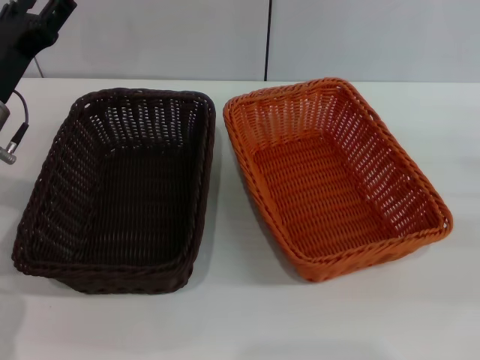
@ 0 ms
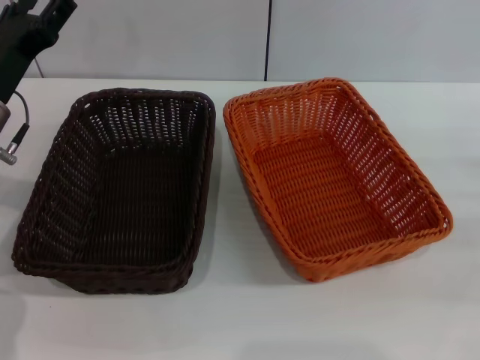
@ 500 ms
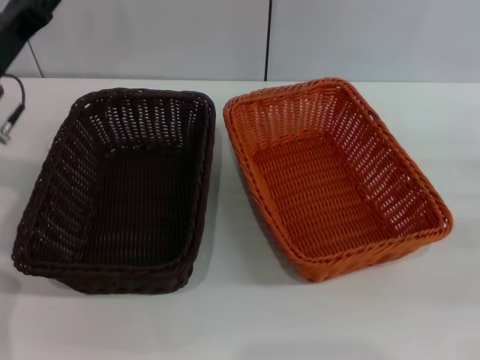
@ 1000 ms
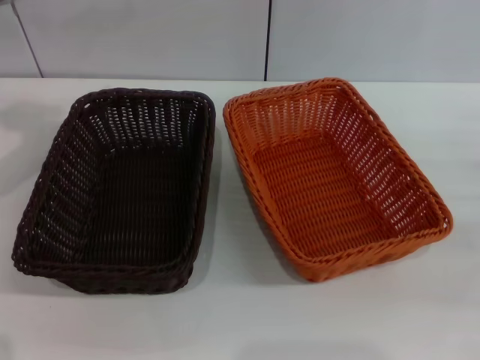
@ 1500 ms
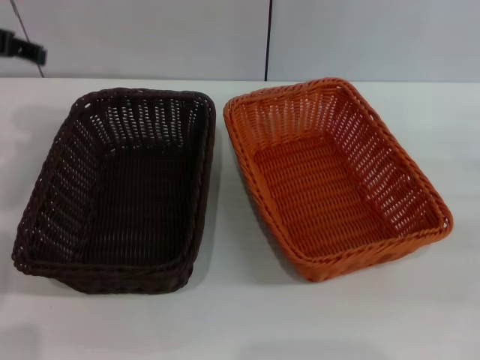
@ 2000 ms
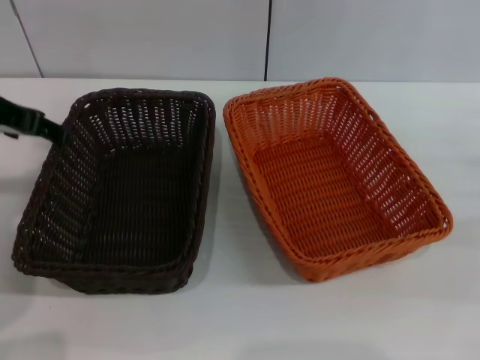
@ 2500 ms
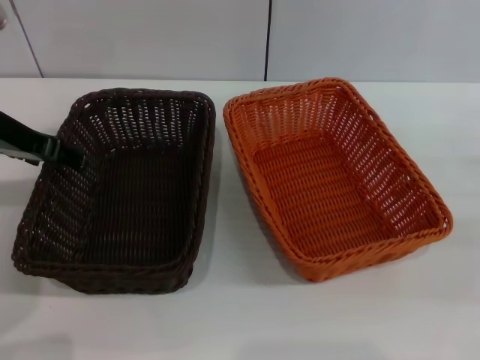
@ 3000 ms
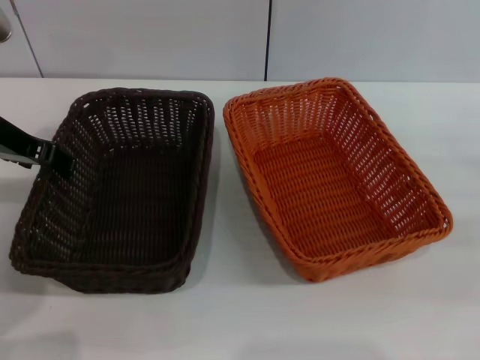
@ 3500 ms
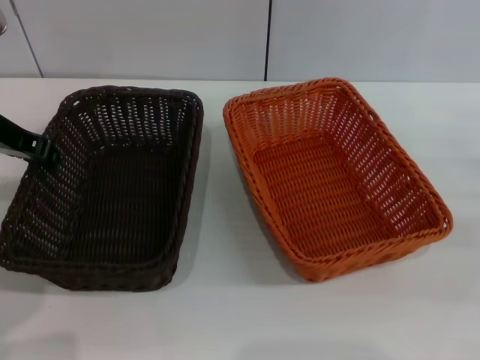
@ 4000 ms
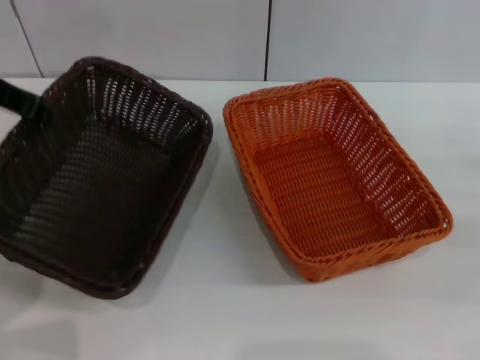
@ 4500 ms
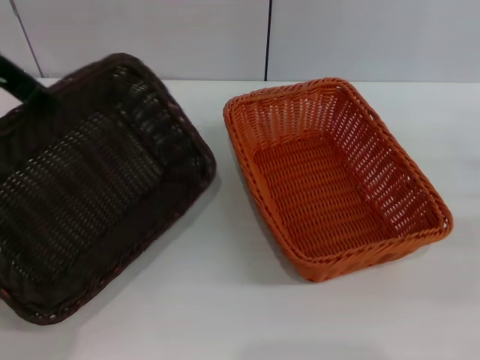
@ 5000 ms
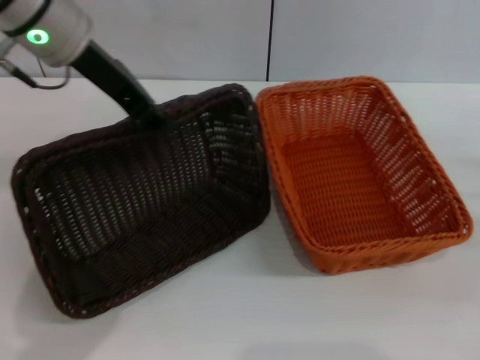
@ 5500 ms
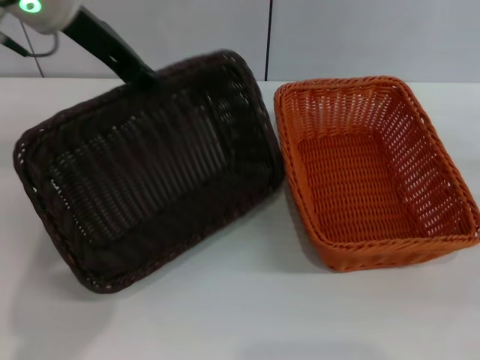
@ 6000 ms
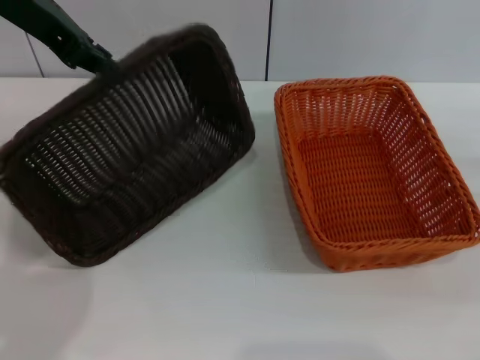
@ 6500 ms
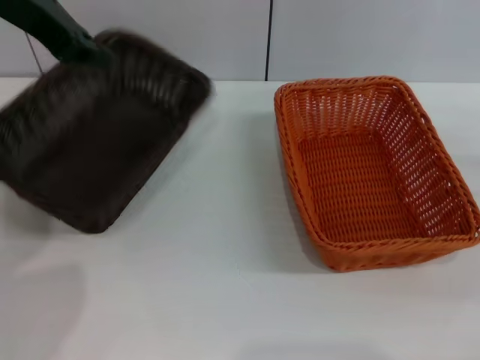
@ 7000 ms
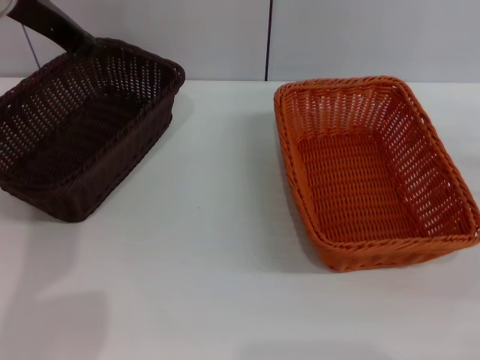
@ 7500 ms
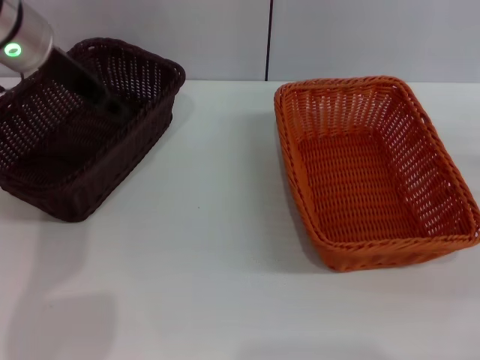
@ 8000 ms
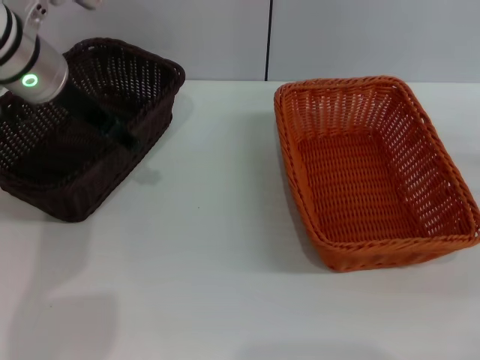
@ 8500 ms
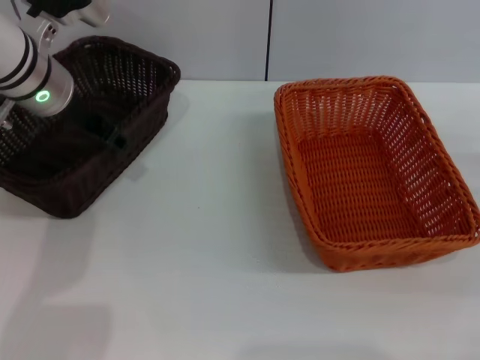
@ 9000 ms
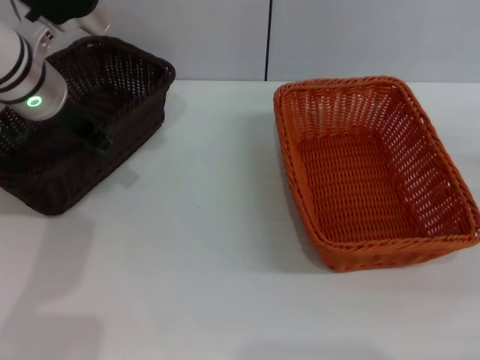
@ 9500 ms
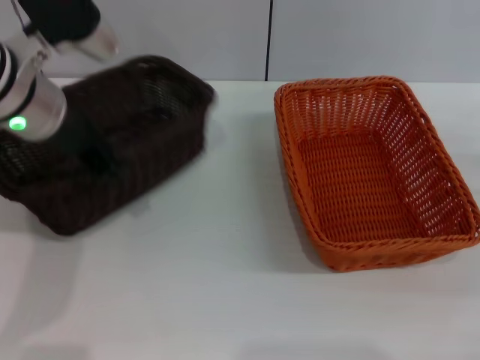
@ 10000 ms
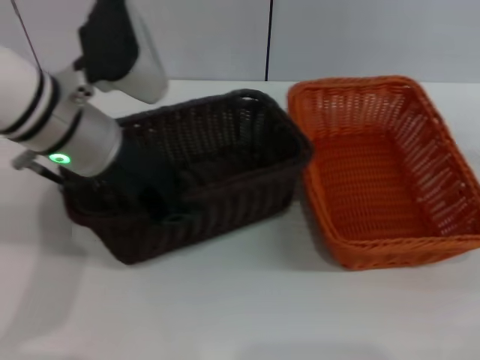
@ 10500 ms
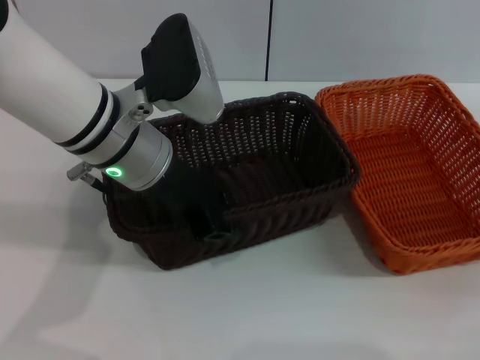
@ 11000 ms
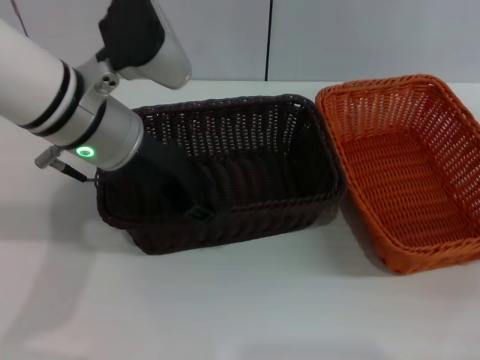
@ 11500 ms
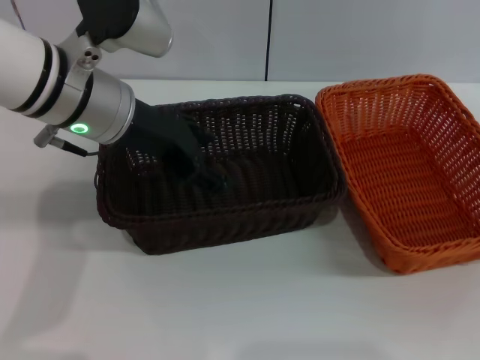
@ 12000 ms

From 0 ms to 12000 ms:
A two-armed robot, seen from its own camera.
Step, from 0 ms to 4500 ms: Pick up the dark basket with the left gripper.
Step, from 5000 ms to 11000 ms: Place the dark basket in the center of view with the left gripper.
From 0 ms to 2000 ms: The left gripper heads upward, covering some 15 cm.
From 2000 ms to 4000 ms: The left gripper heads downward, covering roughly 10 cm, and closes.
From 4000 ms to 6000 ms: The left gripper goes some 10 cm upward and to the right.
From 8000 ms to 10000 ms: The left gripper ends up some 5 cm from where it was, and opens and closes again.
From 10000 ms to 12000 ms: The right gripper moves upward, some 5 cm, while the left gripper opens up.

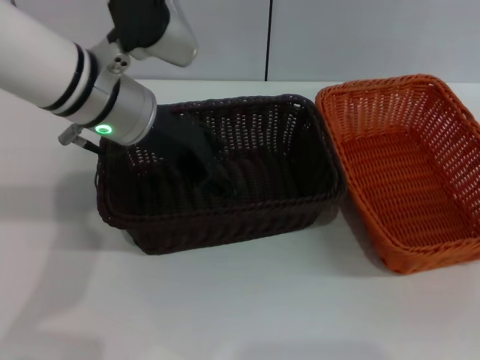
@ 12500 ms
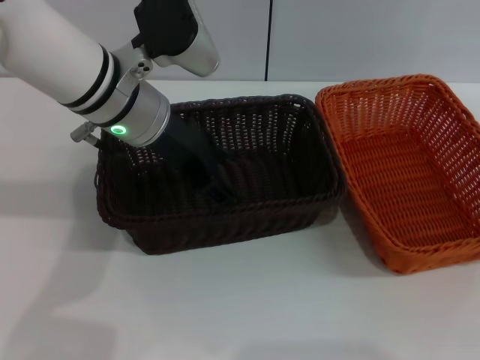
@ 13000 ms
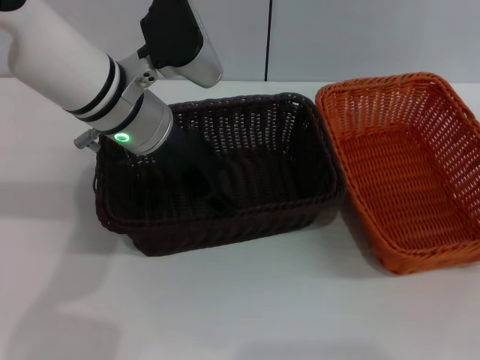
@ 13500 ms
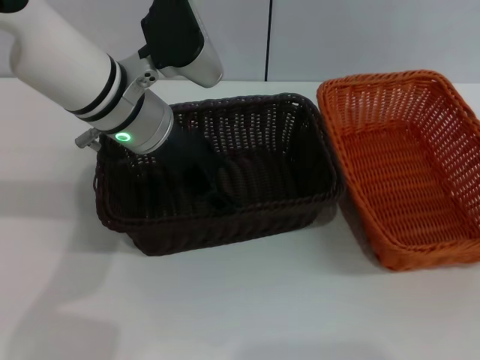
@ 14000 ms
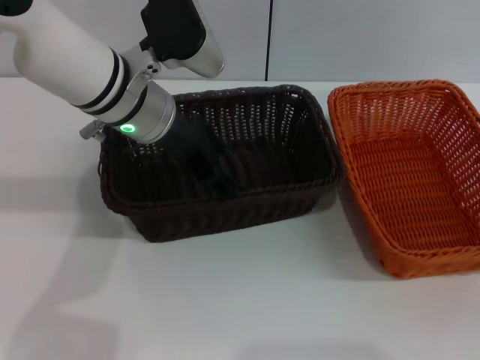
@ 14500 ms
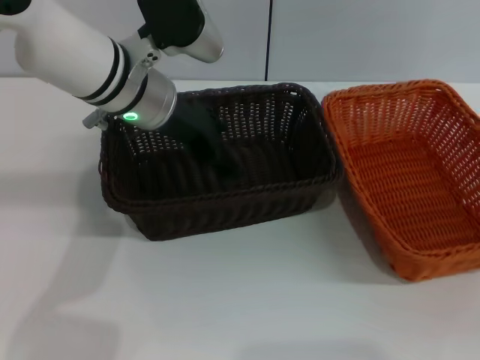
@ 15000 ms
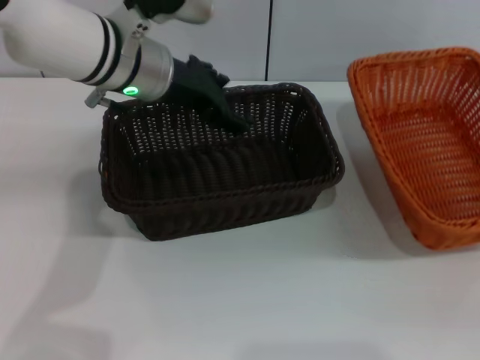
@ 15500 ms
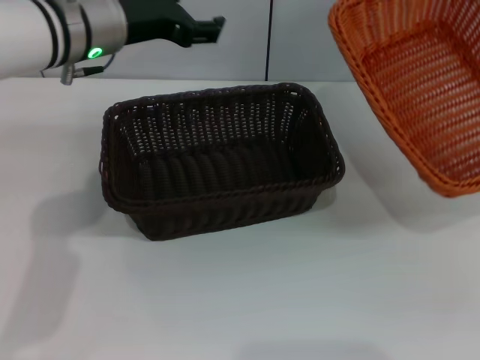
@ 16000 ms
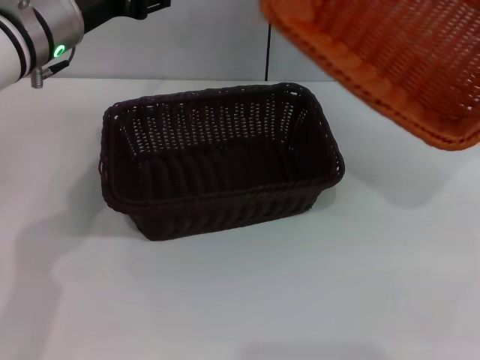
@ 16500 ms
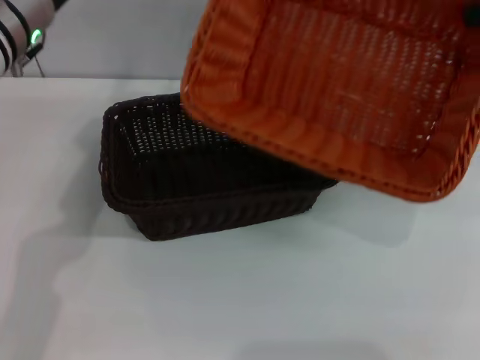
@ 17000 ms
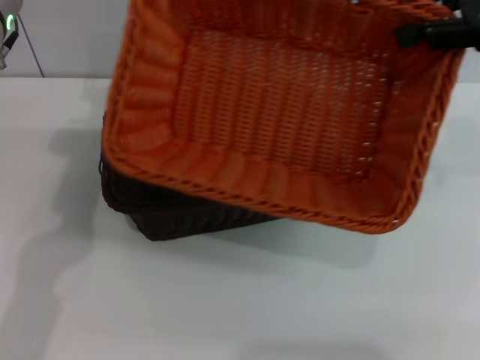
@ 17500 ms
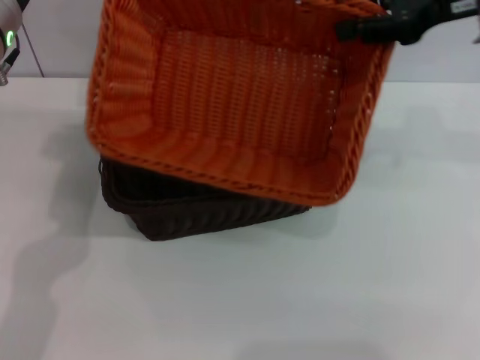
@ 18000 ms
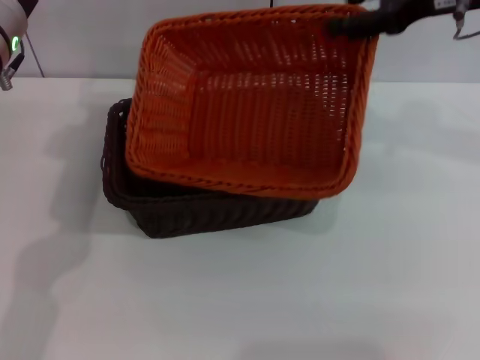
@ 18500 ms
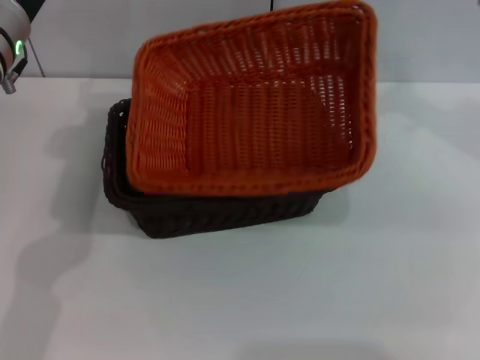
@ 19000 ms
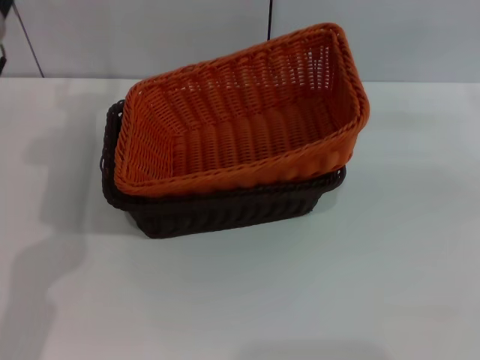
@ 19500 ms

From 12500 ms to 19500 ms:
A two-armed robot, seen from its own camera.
Step, from 12500 ms to 15500 ms: Pick up the light basket with the right gripper.
Step, from 16000 ms to 19000 ms: Place the light basket on the dark basket with the right gripper.
From 12500 ms to 14500 ms: The right gripper goes roughly 5 cm downward.
From 14500 ms to 16000 ms: The left gripper ends up approximately 5 cm from where it was; the right gripper shifts roughly 5 cm upward, and closes up.
From 16000 ms to 17500 ms: The right gripper moves to the left, upward and forward, roughly 20 cm; the left gripper travels to the left by approximately 5 cm.
From 17500 ms to 19500 ms: The right gripper goes some 20 cm downward and to the right, and opens up.
